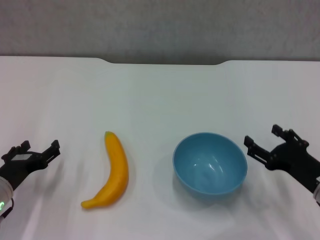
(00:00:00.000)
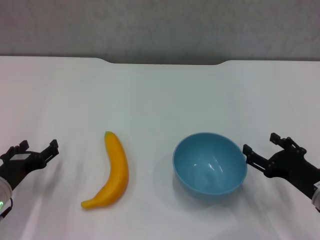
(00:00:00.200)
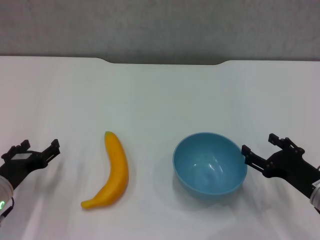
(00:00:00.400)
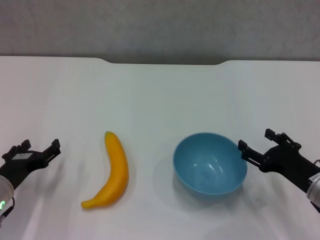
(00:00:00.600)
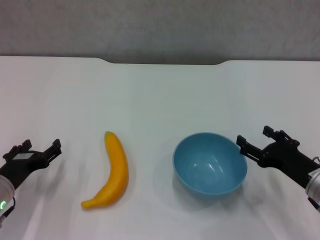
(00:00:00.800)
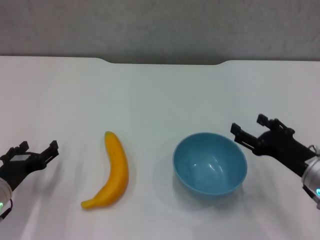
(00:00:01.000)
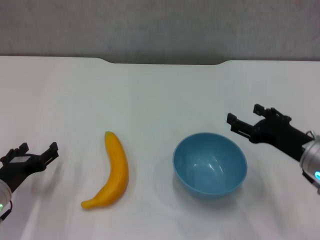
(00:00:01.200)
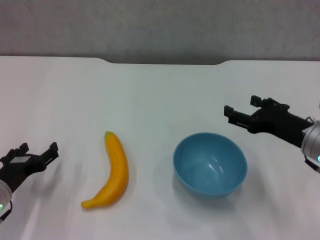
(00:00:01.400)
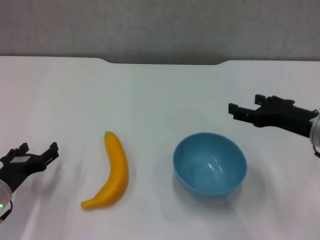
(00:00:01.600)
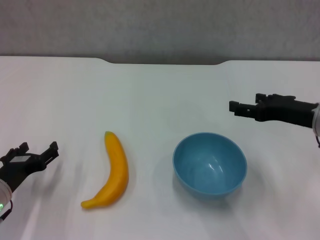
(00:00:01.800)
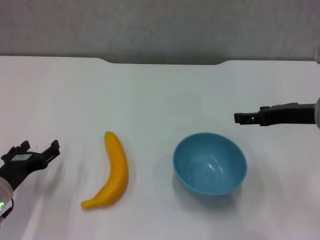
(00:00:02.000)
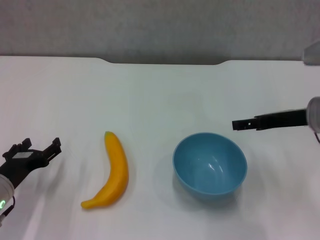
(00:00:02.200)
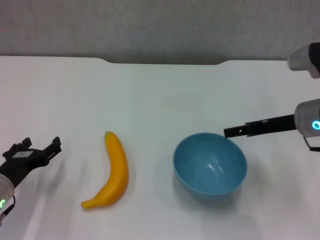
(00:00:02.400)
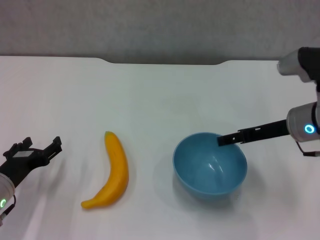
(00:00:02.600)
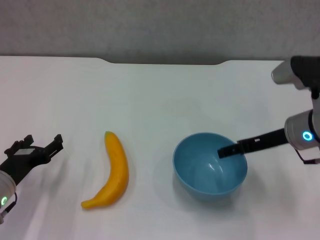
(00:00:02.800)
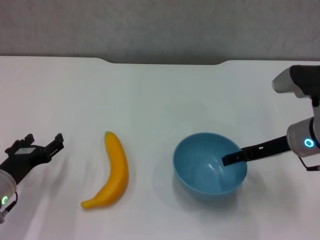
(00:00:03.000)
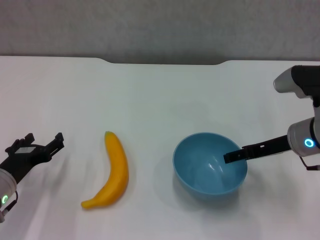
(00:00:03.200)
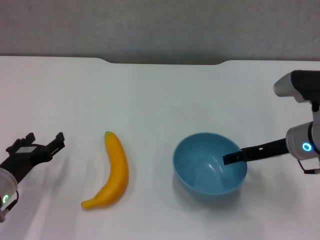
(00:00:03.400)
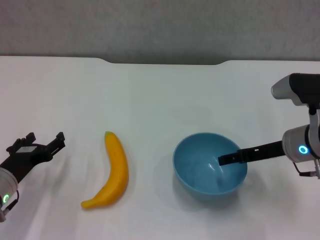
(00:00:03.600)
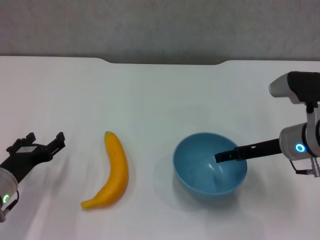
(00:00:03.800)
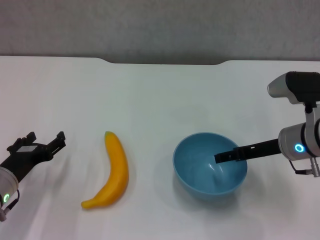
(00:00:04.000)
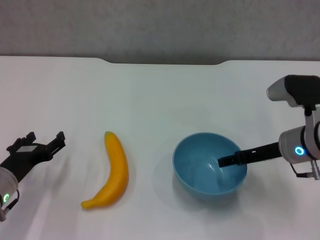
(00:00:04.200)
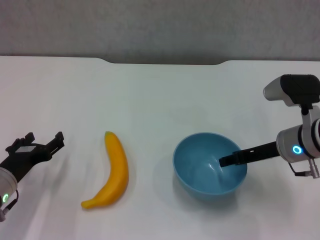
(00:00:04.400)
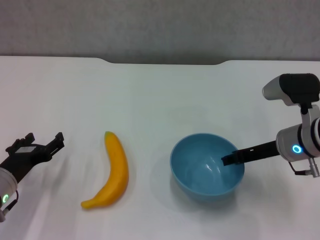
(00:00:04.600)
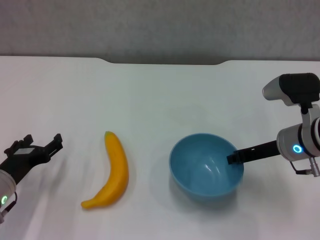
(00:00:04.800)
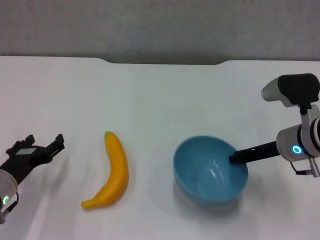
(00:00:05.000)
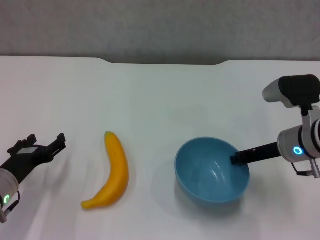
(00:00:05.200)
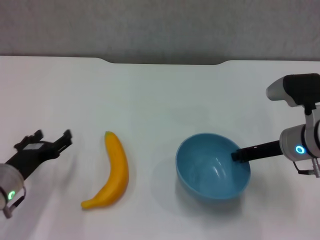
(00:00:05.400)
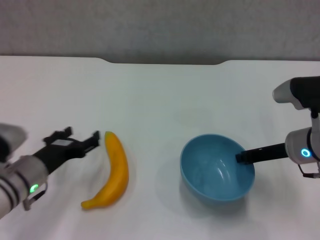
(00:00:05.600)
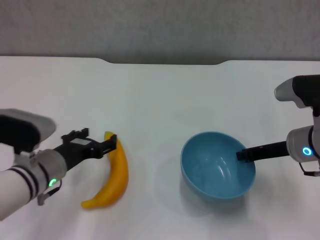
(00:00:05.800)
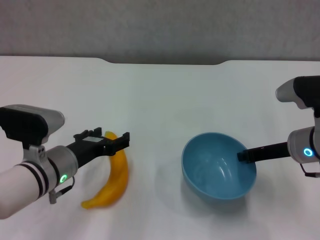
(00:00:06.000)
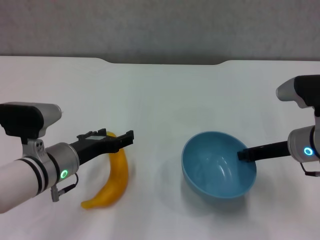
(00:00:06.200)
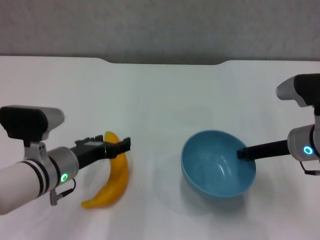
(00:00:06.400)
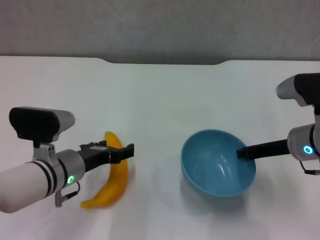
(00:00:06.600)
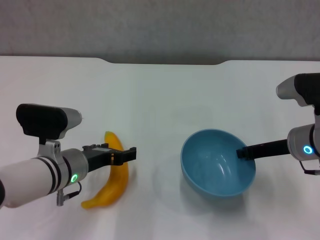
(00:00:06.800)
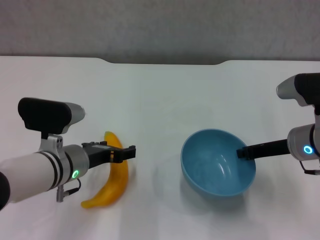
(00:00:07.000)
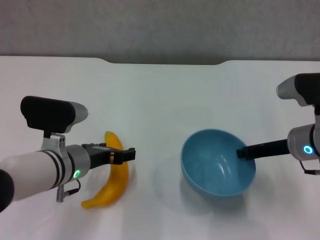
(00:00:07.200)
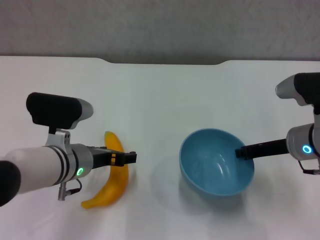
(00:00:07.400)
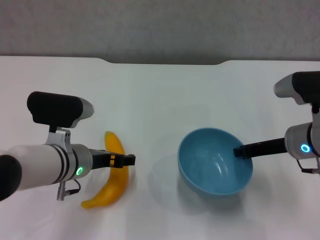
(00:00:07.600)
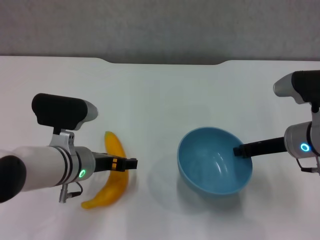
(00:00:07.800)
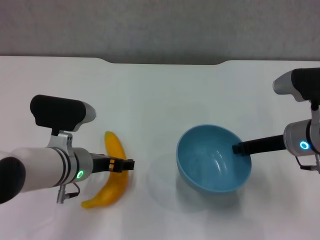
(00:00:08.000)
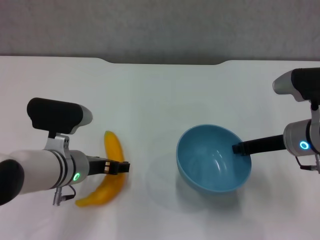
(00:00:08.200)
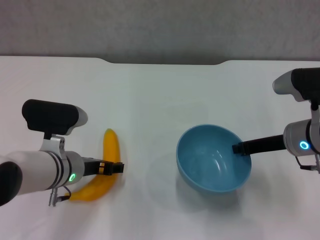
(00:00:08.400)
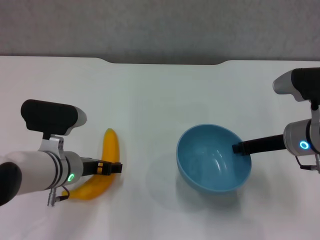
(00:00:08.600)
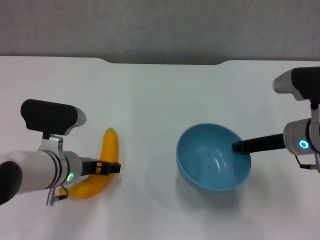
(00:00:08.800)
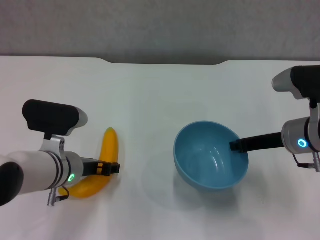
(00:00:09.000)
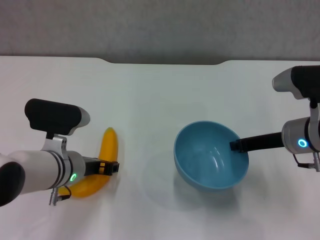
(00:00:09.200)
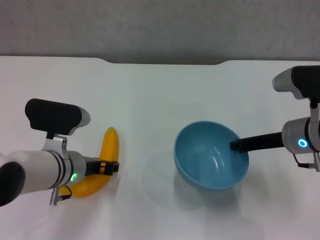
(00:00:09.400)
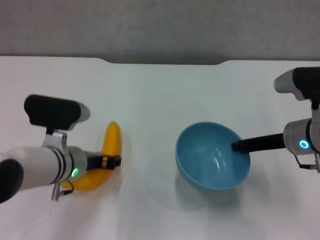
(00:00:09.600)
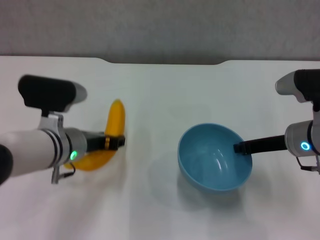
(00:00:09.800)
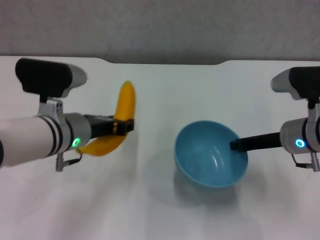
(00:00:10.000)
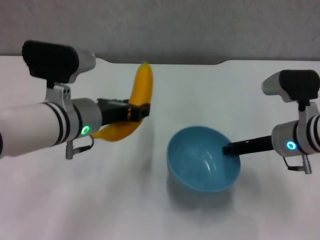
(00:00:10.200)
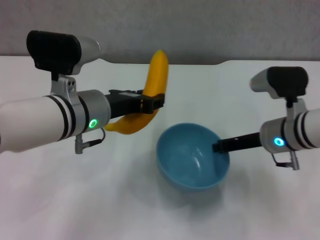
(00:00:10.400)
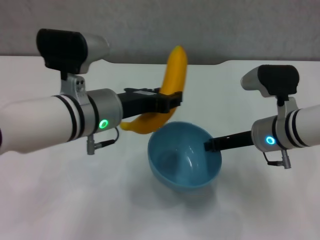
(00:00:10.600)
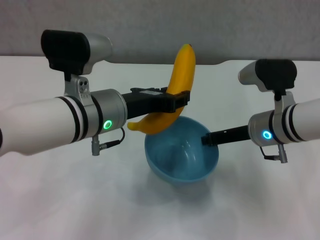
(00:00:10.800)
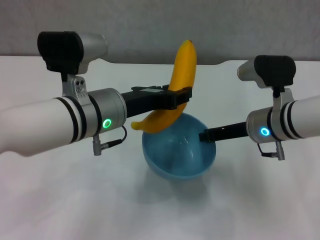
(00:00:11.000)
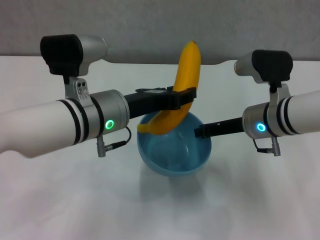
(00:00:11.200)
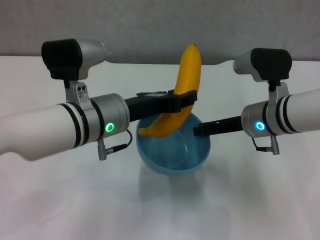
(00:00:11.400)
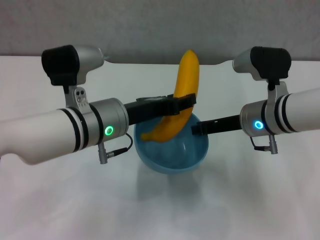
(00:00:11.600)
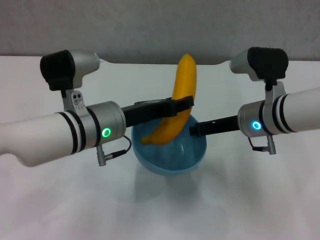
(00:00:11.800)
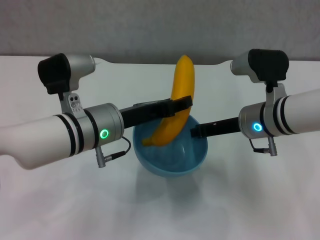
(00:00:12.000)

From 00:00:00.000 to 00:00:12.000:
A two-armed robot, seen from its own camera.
Step, from 00:00:00.000 to 00:00:05.000: Grasp the blue bowl with right gripper.
Step, from 00:00:05.200 to 00:00:05.400: Lift the blue bowl with right gripper.
Step, from 00:00:05.600 to 00:00:09.400: Grasp the banana with left gripper.
From 00:00:00.000 to 00:00:01.600: The right gripper shifts about 10 cm upward and forward.
From 00:00:01.600 to 00:00:03.000: The right gripper shifts by some 5 cm.
From 00:00:03.000 to 00:00:04.400: The grippers stay close to where they were, moving slightly.
From 00:00:04.400 to 00:00:06.000: The left gripper heads to the right, covering some 10 cm. Meanwhile the right gripper closes its fingers.
From 00:00:07.600 to 00:00:09.000: There are only small adjustments of the grippers.
From 00:00:09.000 to 00:00:10.400: The left gripper travels upward by some 10 cm, and closes its fingers.

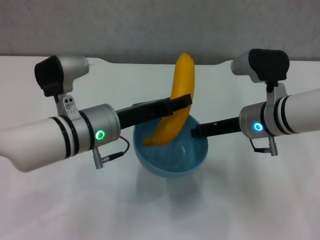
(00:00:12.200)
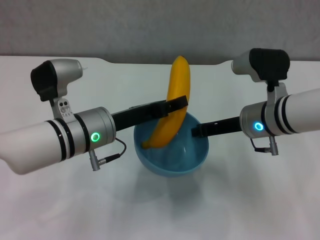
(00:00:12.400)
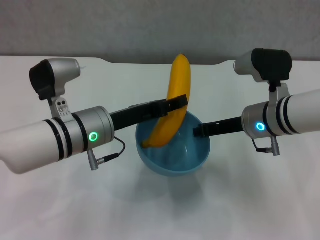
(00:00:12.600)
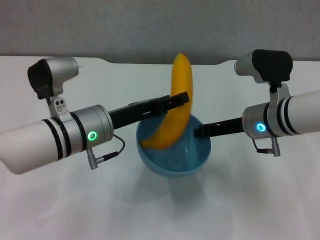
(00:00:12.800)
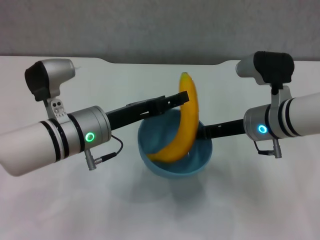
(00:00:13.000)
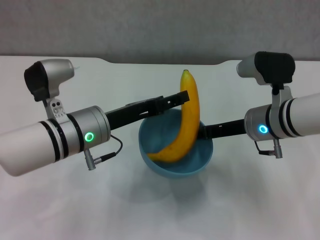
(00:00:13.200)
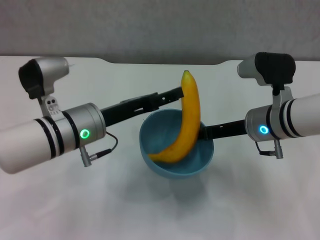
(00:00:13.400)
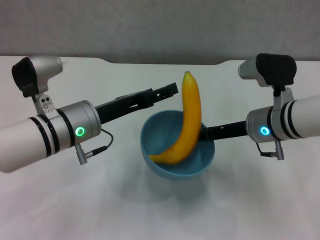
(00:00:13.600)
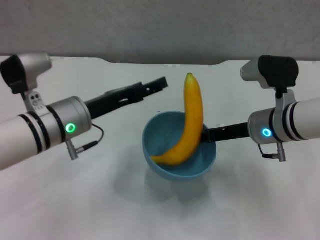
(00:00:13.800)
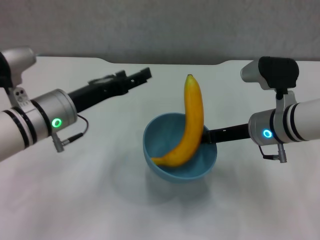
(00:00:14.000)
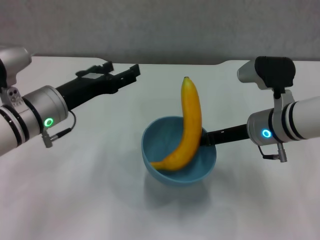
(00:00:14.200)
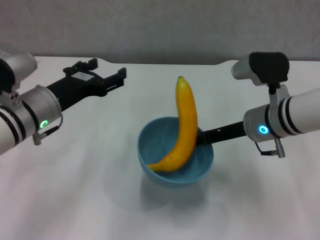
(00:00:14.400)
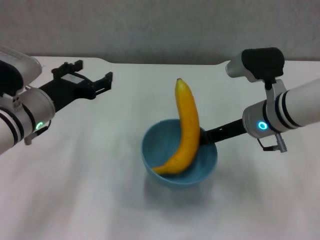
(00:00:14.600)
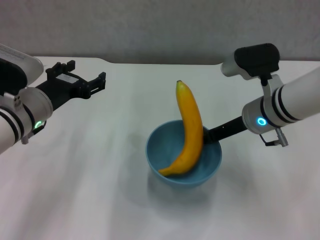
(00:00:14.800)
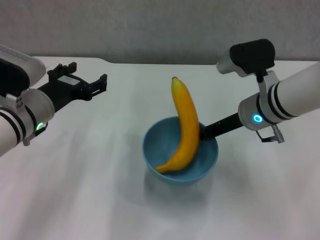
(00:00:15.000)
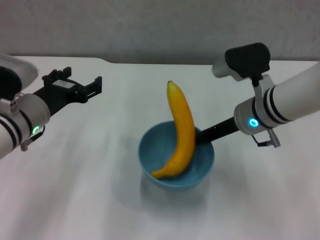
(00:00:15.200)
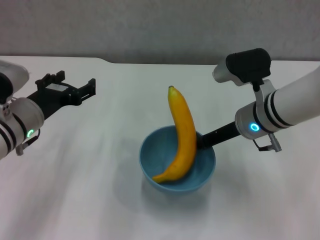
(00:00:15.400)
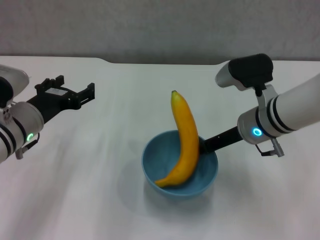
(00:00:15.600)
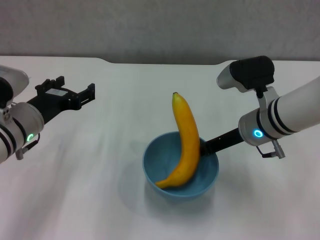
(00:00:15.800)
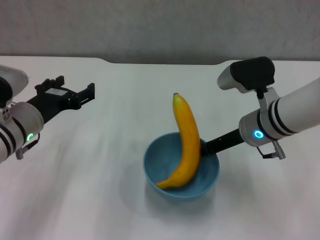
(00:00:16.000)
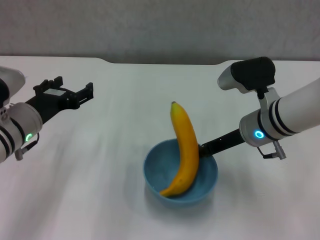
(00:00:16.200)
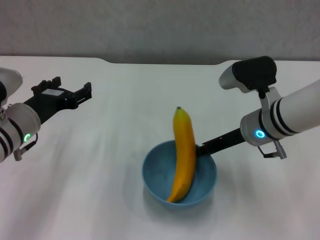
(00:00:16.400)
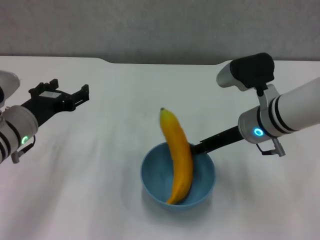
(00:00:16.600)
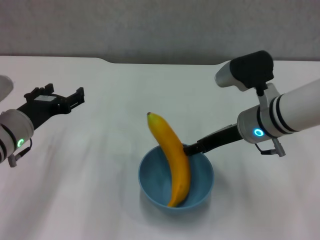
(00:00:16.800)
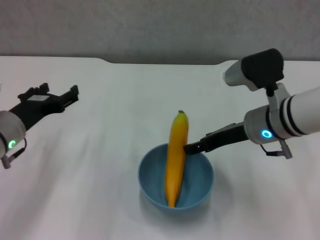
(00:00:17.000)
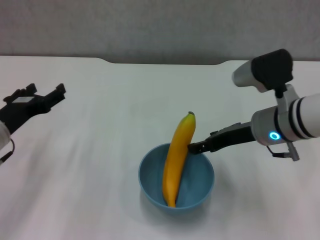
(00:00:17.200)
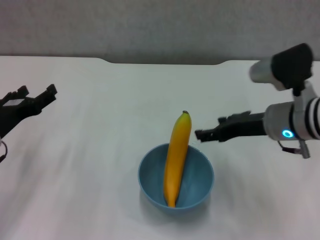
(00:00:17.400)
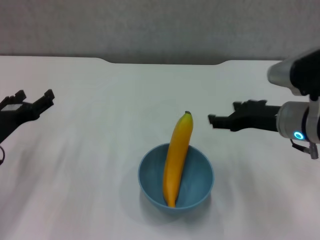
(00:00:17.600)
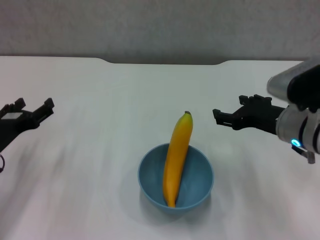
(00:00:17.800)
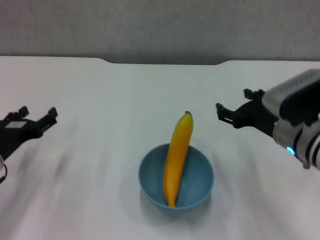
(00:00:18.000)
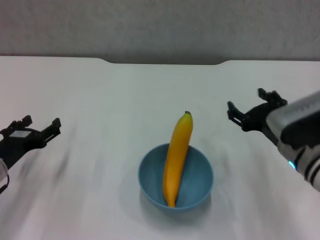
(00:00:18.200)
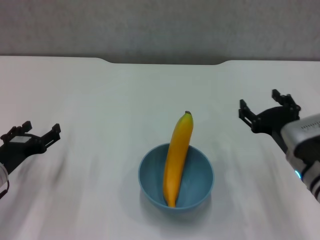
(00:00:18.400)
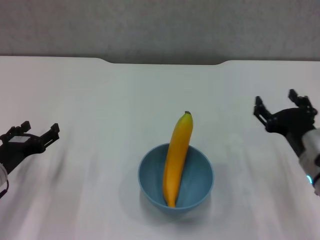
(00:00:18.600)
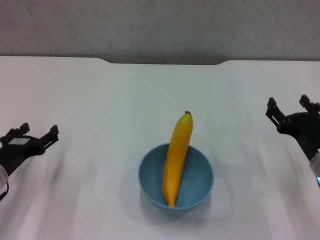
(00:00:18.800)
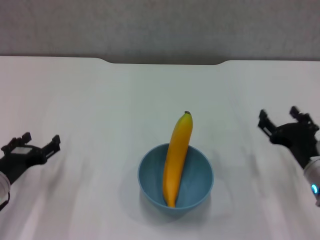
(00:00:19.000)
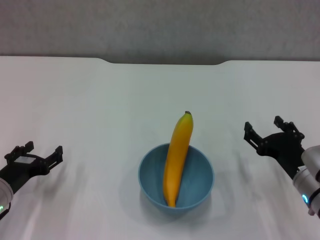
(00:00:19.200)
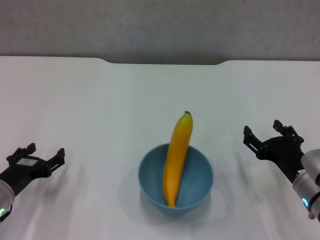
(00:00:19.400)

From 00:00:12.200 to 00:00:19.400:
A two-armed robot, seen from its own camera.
Step, from 00:00:13.400 to 00:00:17.200: Place the bowl on the table with right gripper.
From 00:00:12.200 to 00:00:13.600: The left gripper opens its fingers.
From 00:00:13.600 to 00:00:15.000: The left gripper heads to the left, covering about 5 cm.
From 00:00:16.600 to 00:00:18.000: The left gripper shifts approximately 5 cm to the left; the right gripper heads backward, covering some 5 cm, and opens up.
From 00:00:18.000 to 00:00:19.400: The left gripper shifts by roughly 5 cm. The right gripper shifts roughly 10 cm downward and backward.
